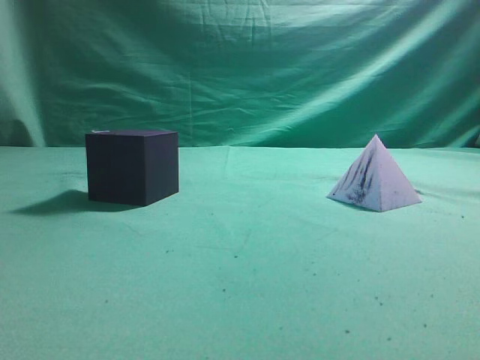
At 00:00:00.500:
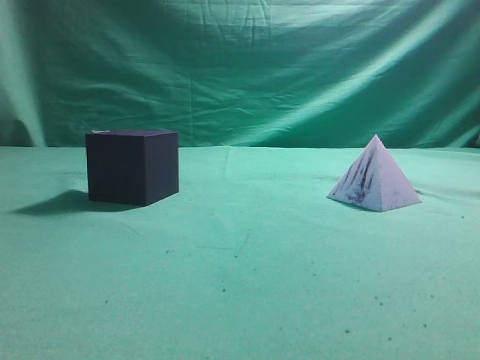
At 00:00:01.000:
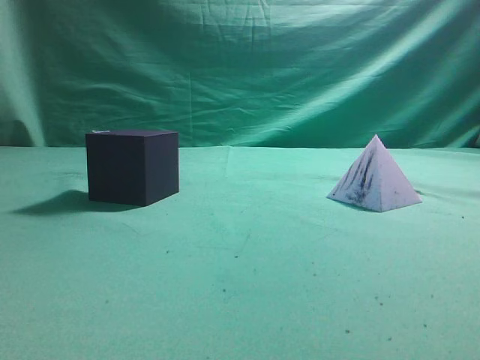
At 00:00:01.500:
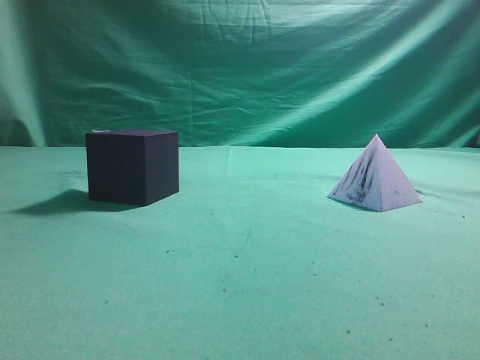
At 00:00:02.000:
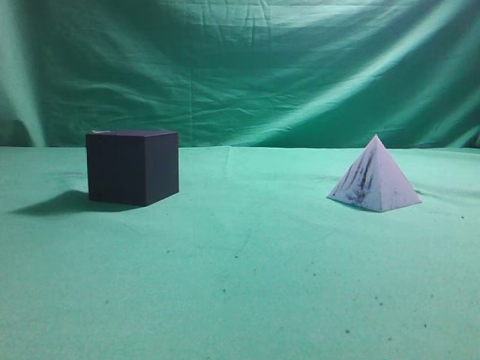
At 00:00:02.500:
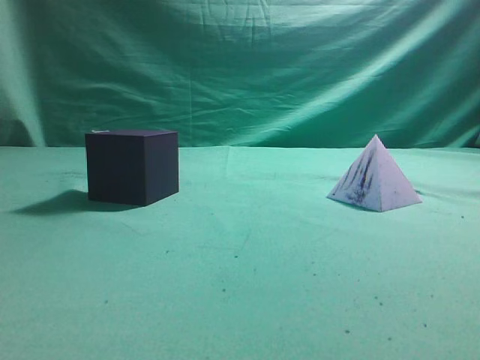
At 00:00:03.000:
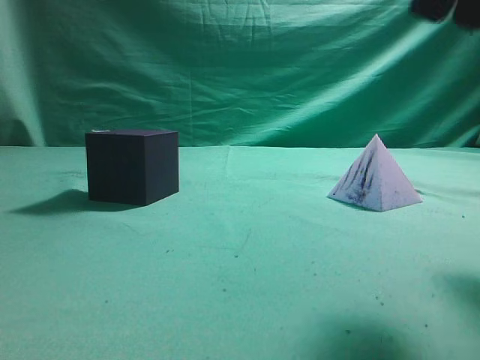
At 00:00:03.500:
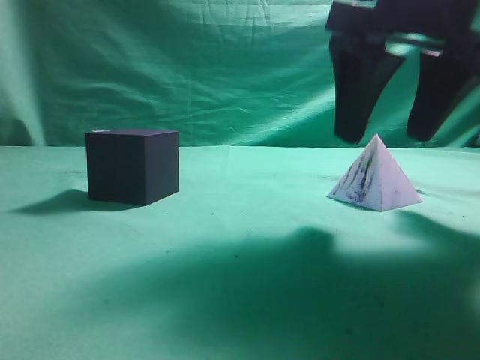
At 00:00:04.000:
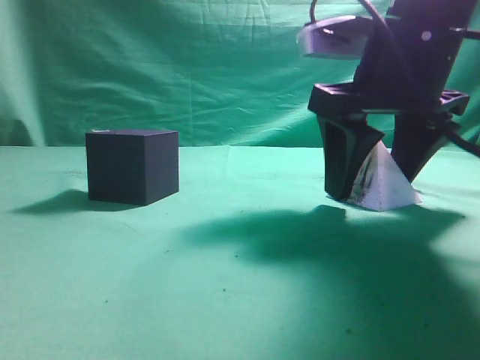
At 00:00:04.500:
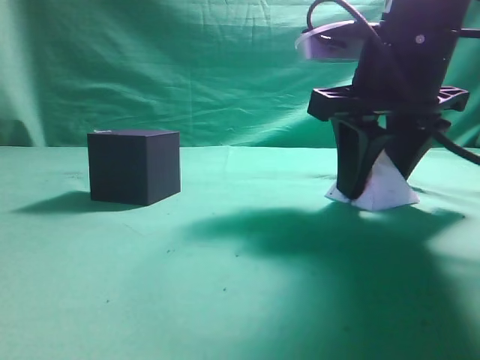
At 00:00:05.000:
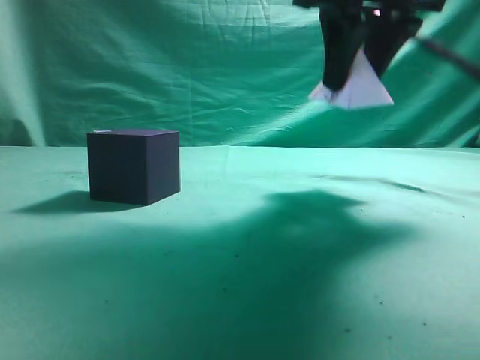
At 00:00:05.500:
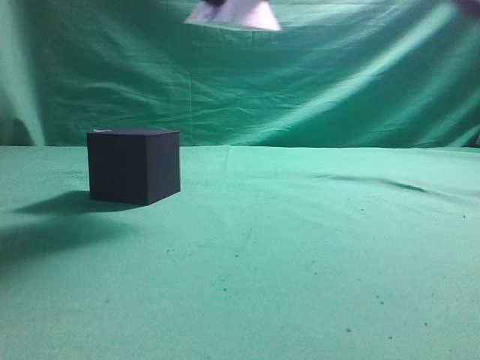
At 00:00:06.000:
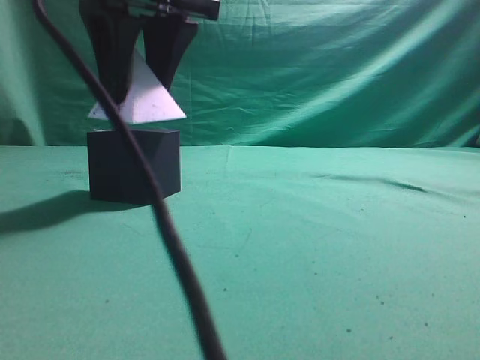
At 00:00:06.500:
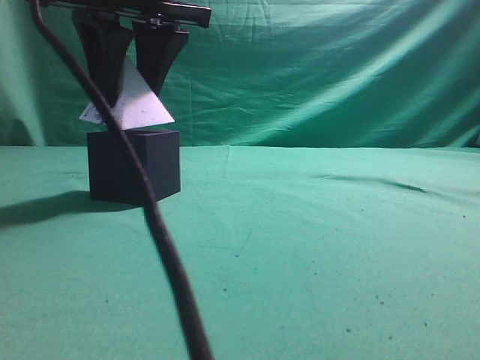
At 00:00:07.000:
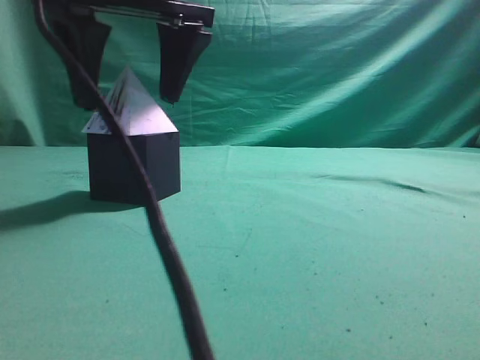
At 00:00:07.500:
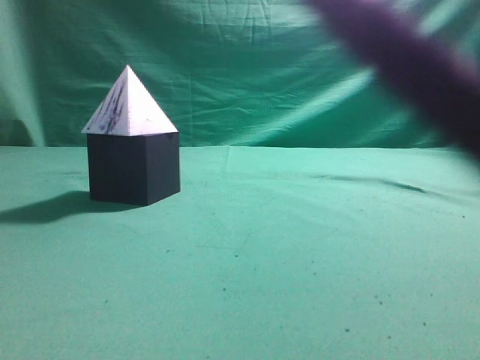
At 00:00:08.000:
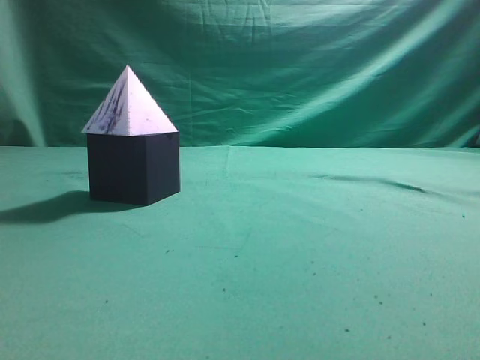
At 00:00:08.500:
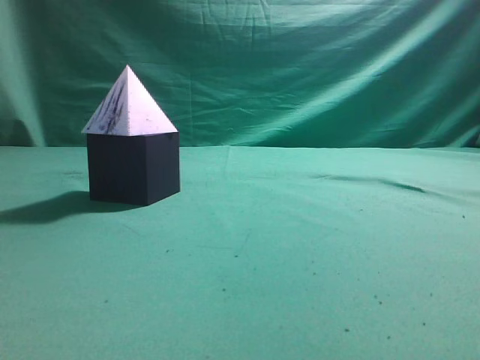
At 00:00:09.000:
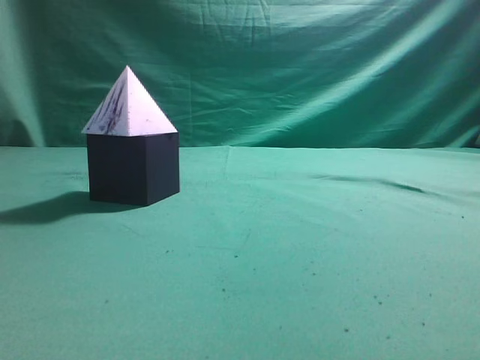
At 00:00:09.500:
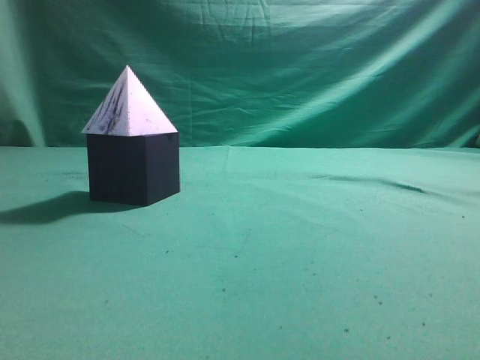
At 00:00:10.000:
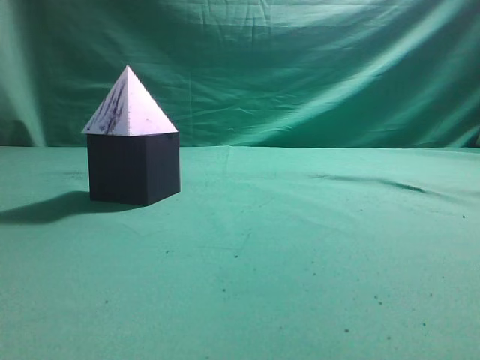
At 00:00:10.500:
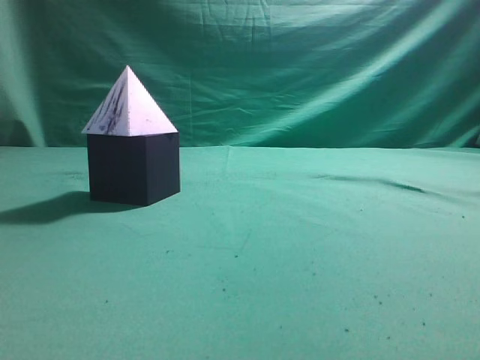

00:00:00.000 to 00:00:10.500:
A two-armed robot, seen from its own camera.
Task of the whole recording: pick up the square pyramid from the table and place it on the cube block.
Step, 00:00:00.000 to 00:00:04.500: Grasp the triangular block.
Step, 00:00:05.000 to 00:00:07.000: Place the block onto the cube-shaped block.
00:00:02.000 to 00:00:04.000: The right gripper heads forward, to the left and downward, covering some 30 cm, and opens.
00:00:04.000 to 00:00:06.500: The right gripper heads to the left and upward, covering approximately 20 cm, and closes up.
00:00:06.500 to 00:00:08.500: The right gripper goes some 35 cm to the right, backward and upward, and closes its fingers.
